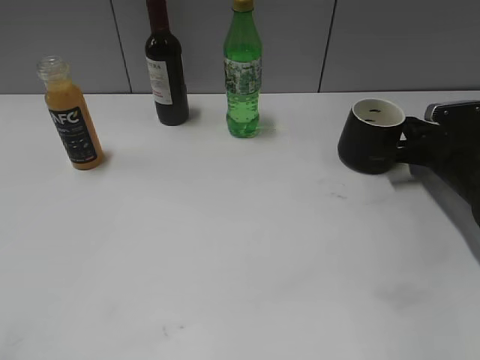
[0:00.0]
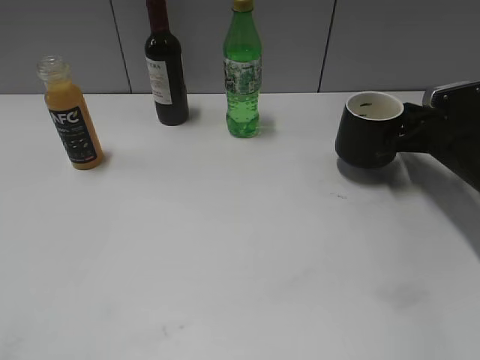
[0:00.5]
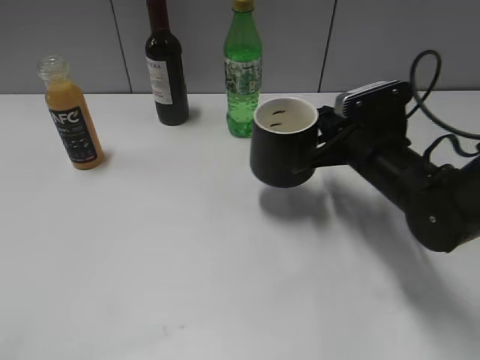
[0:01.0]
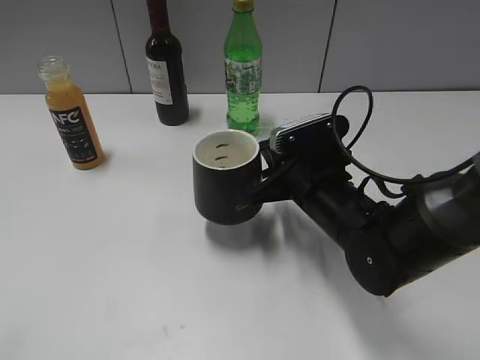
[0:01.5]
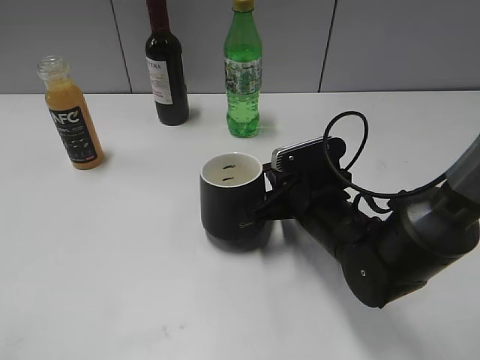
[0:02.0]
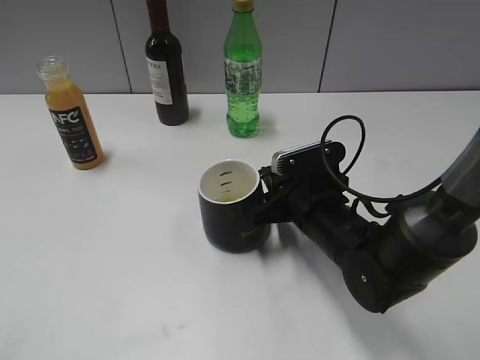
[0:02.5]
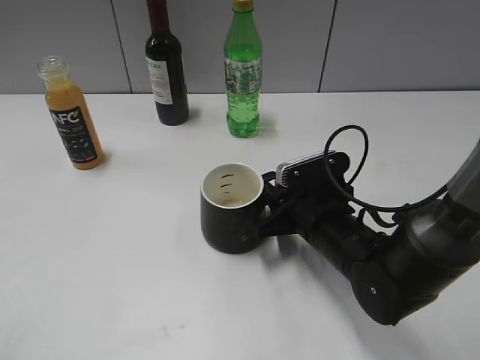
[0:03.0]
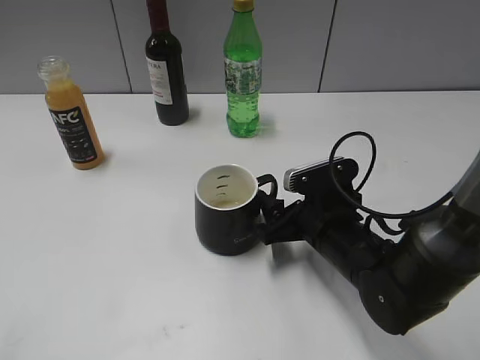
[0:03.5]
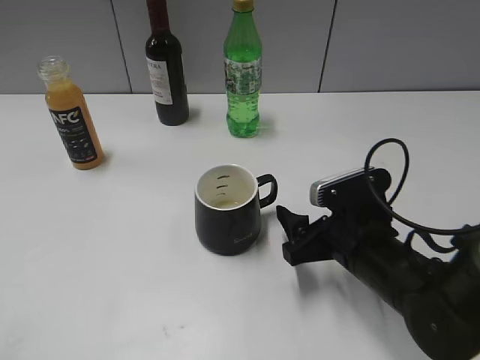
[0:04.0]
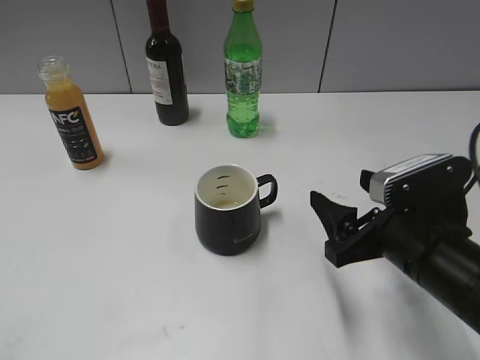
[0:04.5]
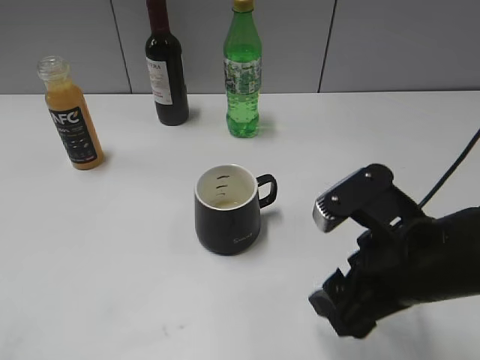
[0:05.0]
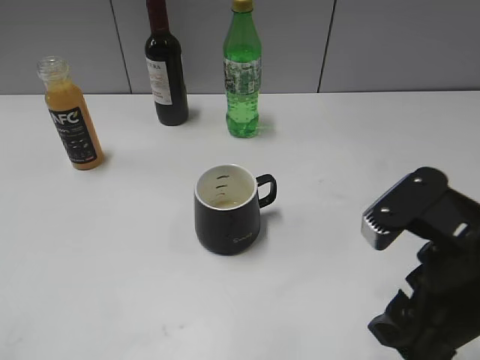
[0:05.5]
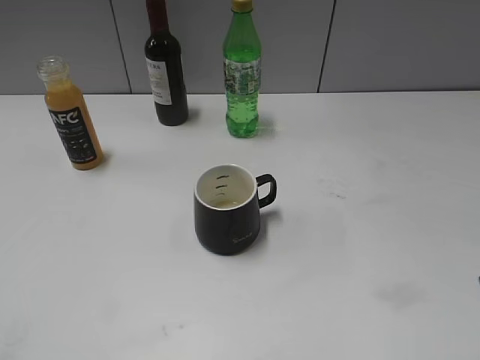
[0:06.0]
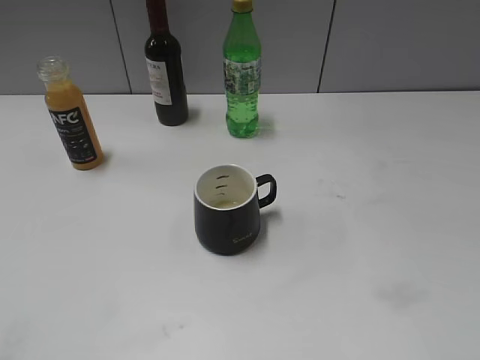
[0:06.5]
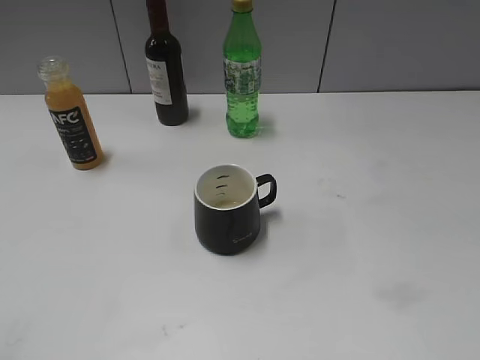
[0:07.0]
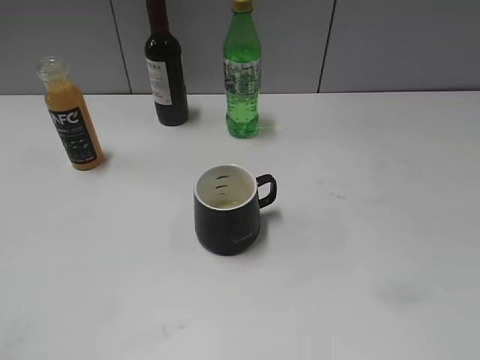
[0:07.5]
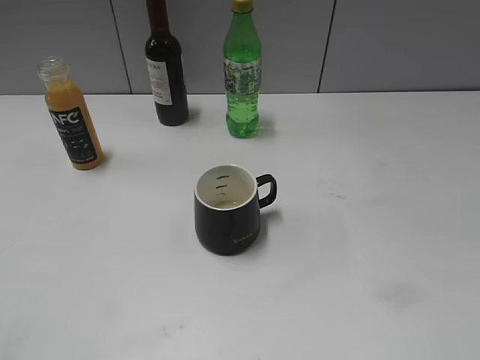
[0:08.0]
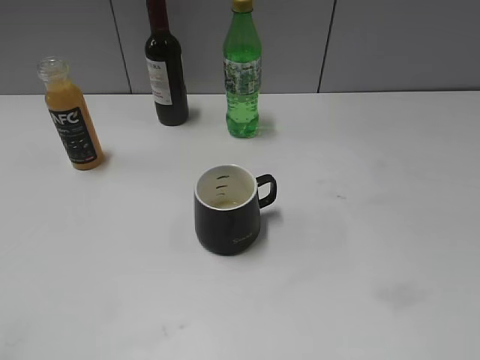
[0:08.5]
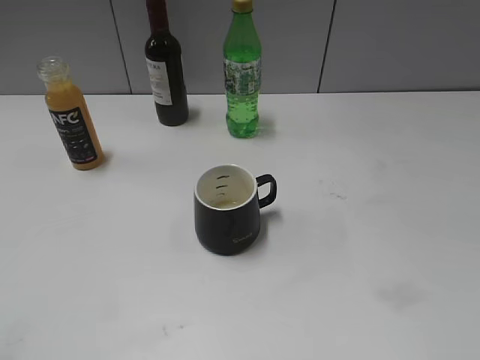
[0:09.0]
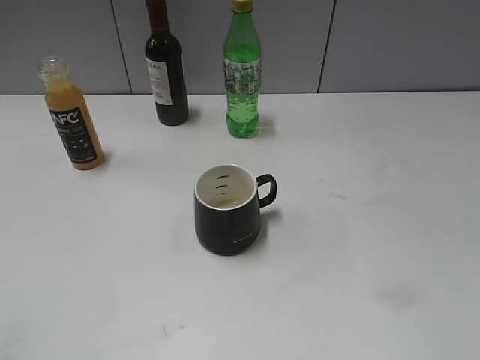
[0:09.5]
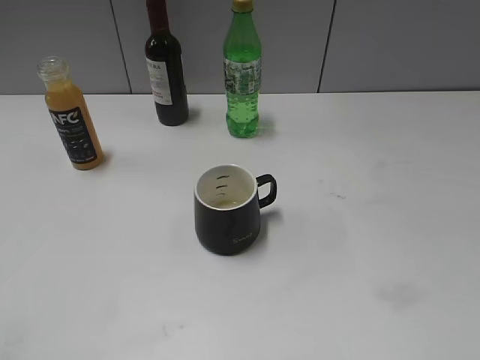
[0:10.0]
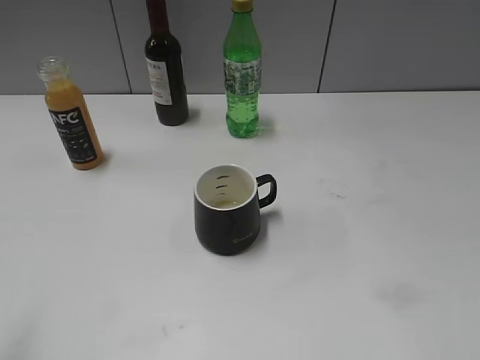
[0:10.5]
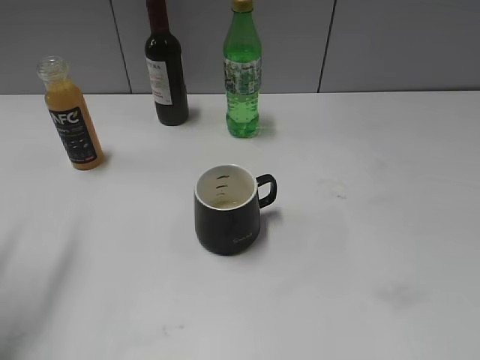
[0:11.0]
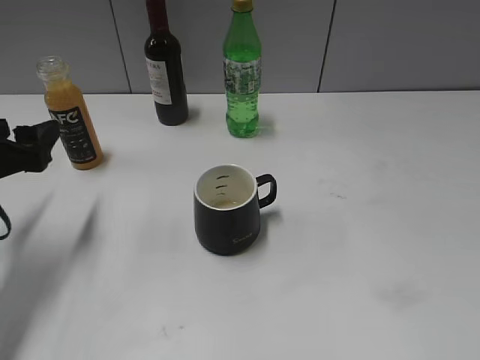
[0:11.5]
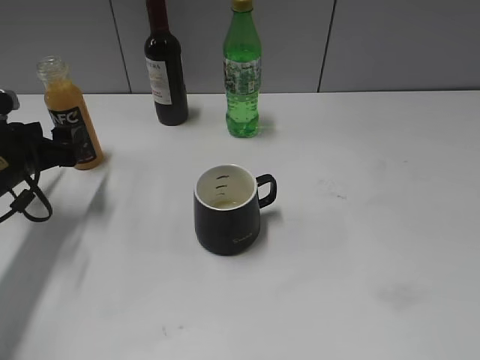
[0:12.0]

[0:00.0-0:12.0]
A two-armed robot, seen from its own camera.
Step, 0:00.5 to 0:03.0: Place the black cup in the center of view with right gripper.
0:00.0 to 0:02.0: The right gripper is displaced to the left and backward by roughly 25 cm.
0:02.0 to 0:04.0: The right gripper moves backward, some 5 cm, and opens up.
0:04.0 to 0:06.0: The right gripper goes about 25 cm upward, backward and to the right.
0:10.0 to 0:12.0: The left gripper heads forward and downward, covering roughly 35 cm.

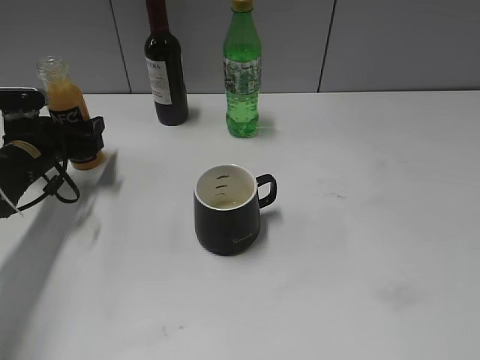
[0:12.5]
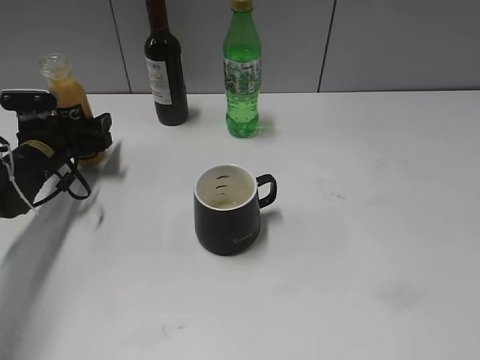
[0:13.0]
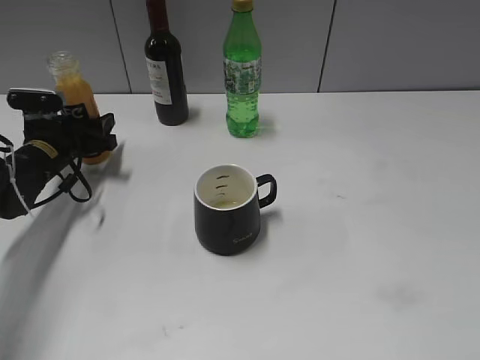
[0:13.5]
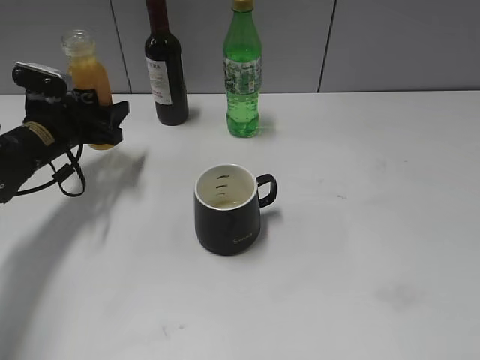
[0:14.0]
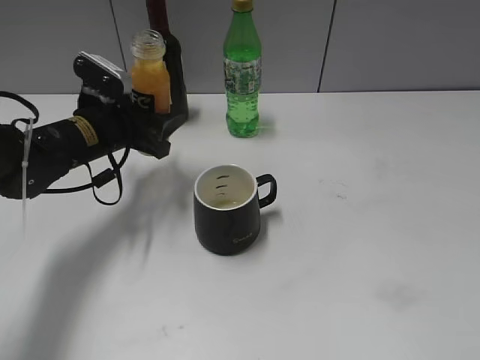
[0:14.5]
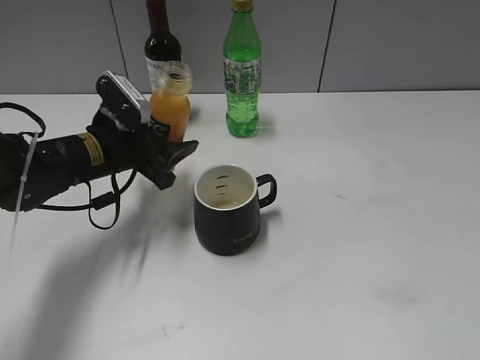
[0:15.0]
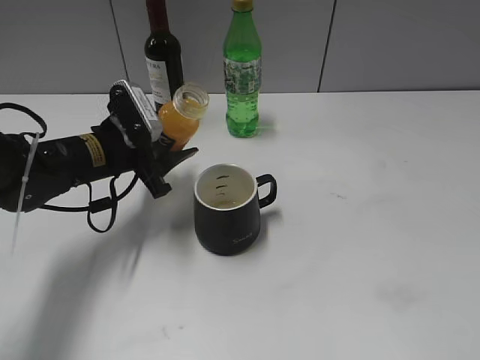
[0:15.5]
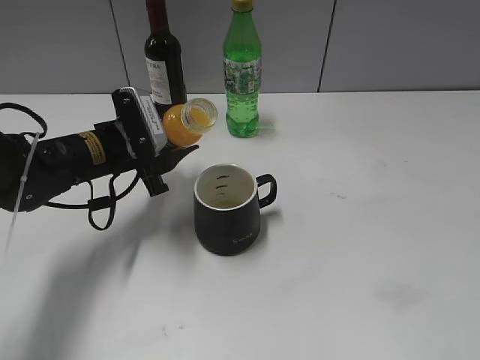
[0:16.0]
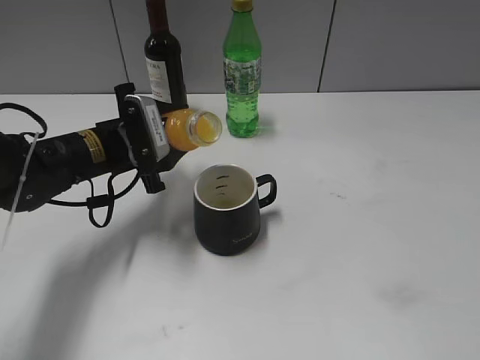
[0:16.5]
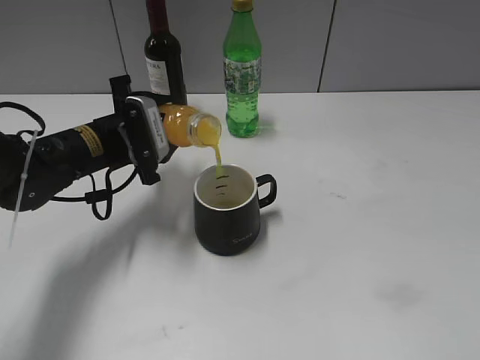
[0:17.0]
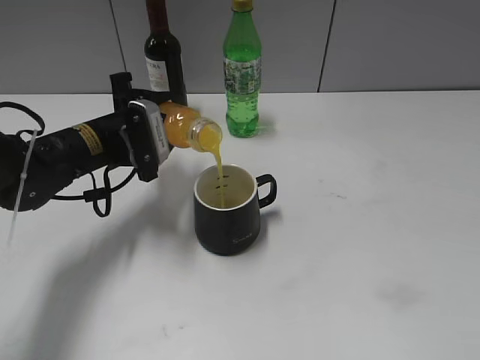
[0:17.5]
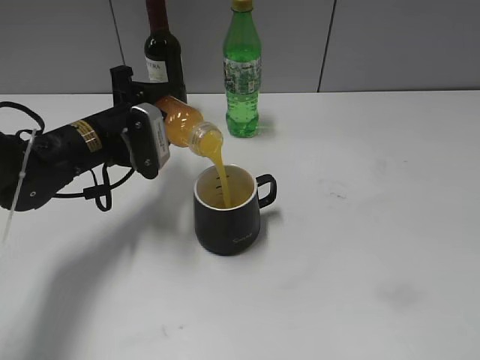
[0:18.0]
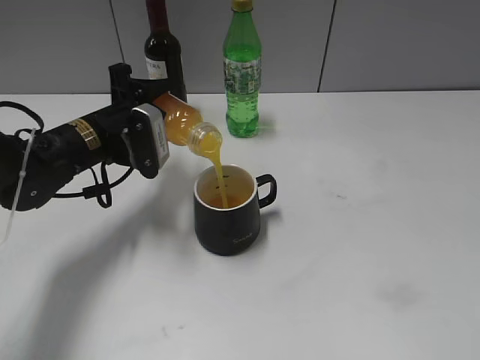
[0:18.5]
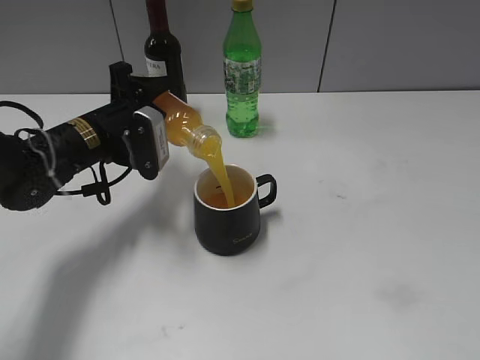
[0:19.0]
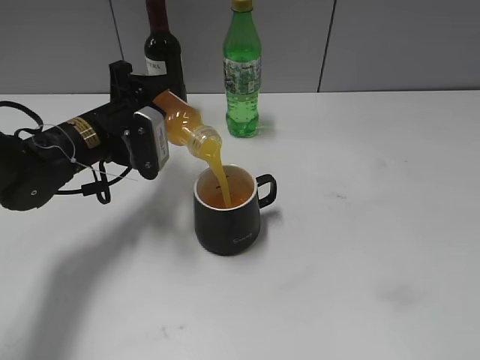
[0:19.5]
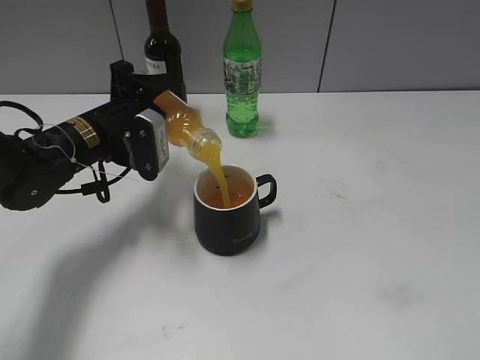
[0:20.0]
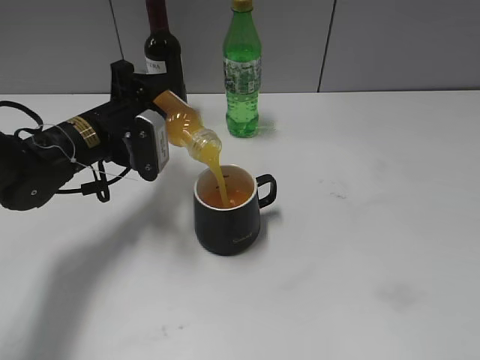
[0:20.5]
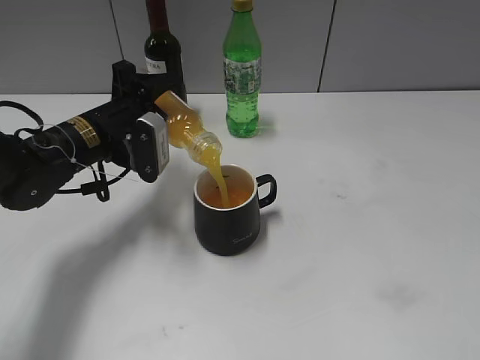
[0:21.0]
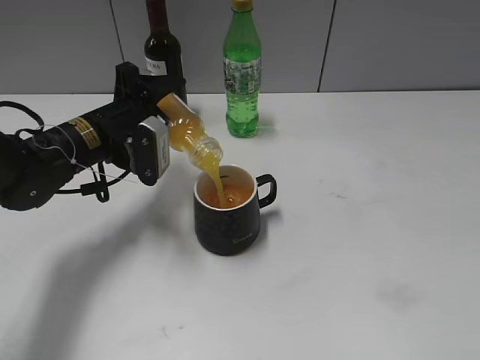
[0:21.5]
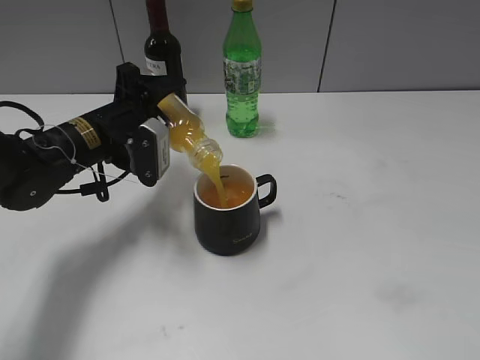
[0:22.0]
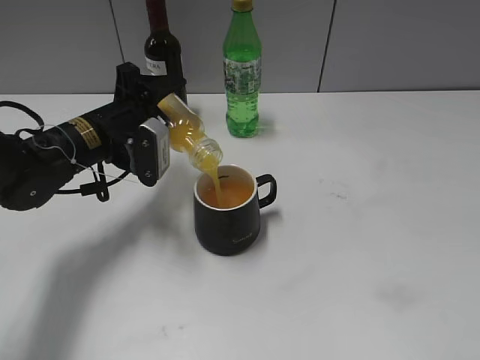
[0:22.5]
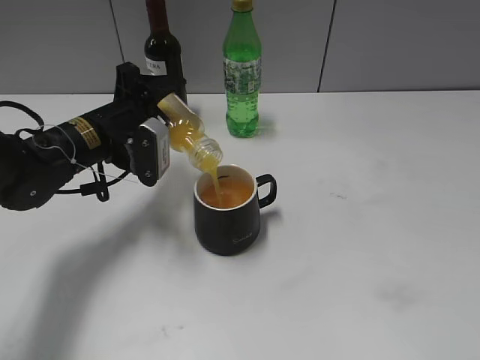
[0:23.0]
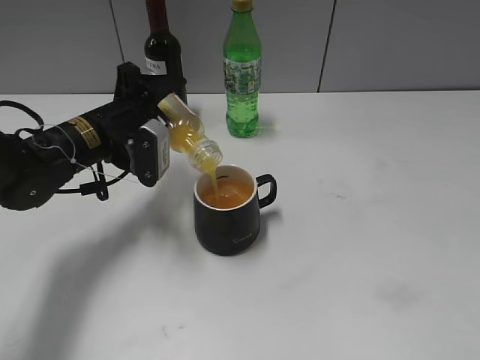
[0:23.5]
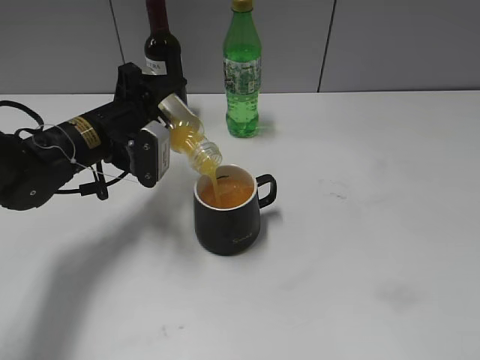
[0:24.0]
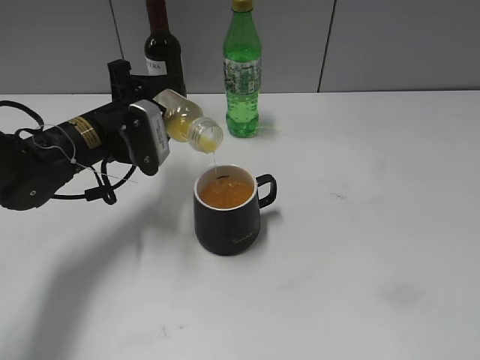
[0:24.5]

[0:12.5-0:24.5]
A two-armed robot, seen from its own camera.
0:12.5 to 0:14.5: The left gripper heads to the right, covering some 10 cm, and closes.
0:18.5 to 0:24.5: The grippers stay close to where they were, moving slightly.

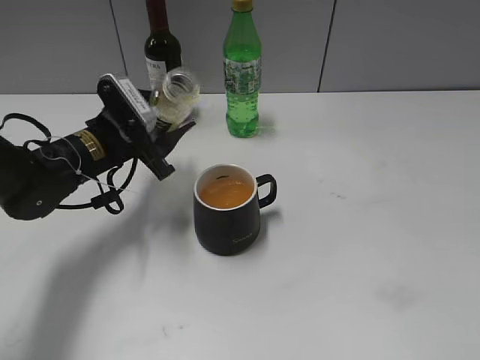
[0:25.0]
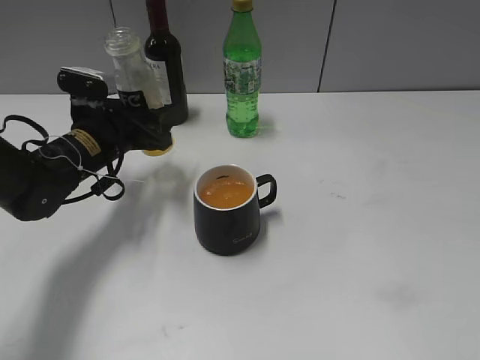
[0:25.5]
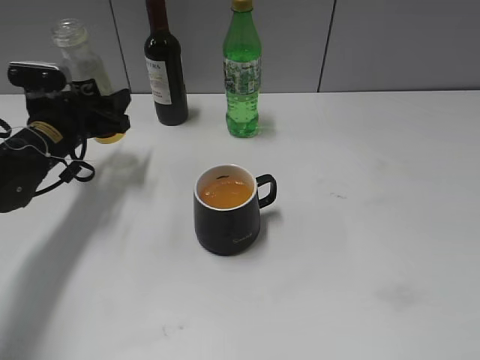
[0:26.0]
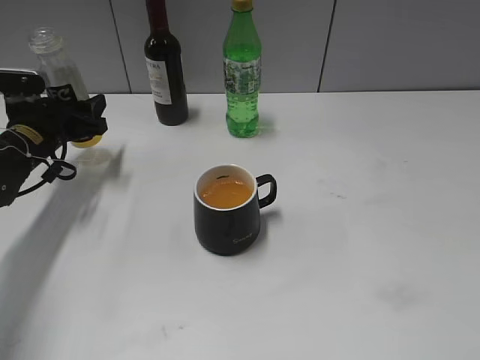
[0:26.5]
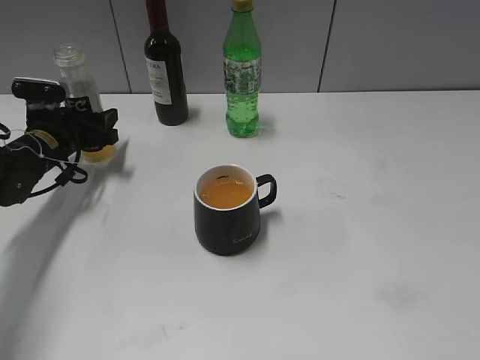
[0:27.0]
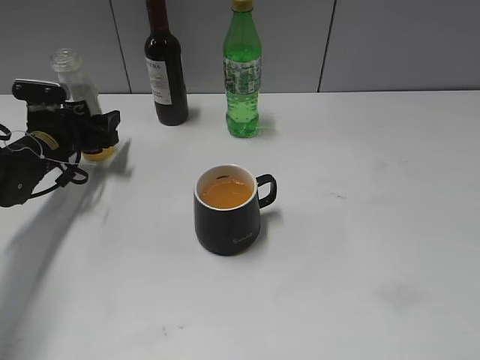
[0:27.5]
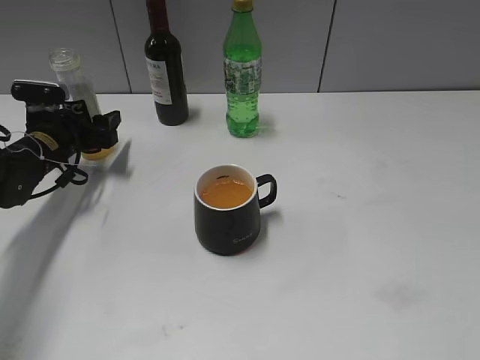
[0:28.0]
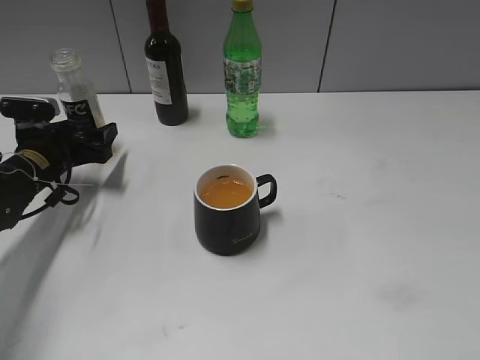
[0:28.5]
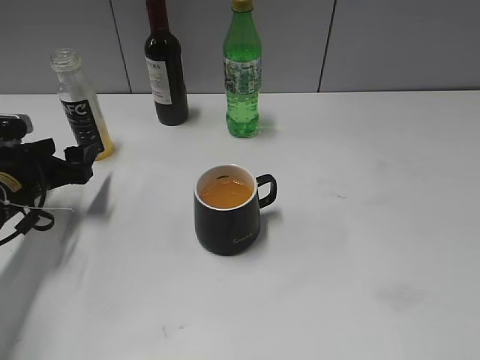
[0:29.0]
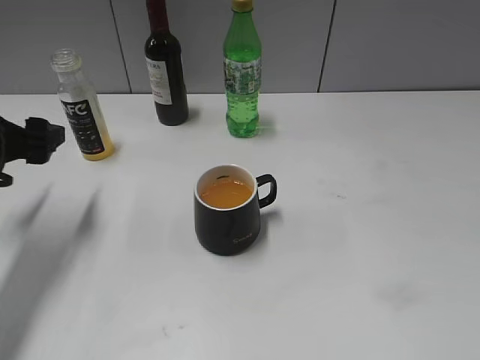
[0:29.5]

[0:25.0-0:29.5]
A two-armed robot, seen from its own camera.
Step, 0:25.0 to 0:27.5: Place the orange juice bottle on the table with left gripper.
0:25.0 to 0:27.0: The left gripper travels to the left and forward by about 10 cm.
0:27.0 to 0:29.5: The left gripper shifts approximately 15 cm backward and upward, and opens.
